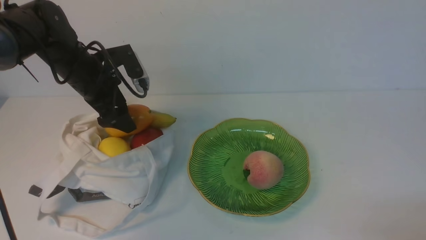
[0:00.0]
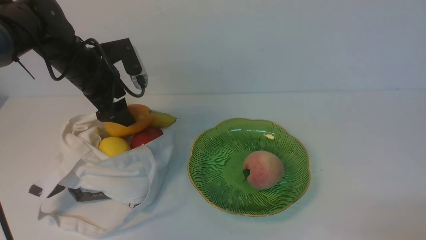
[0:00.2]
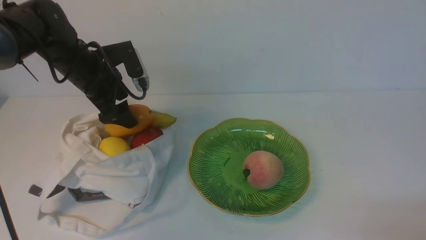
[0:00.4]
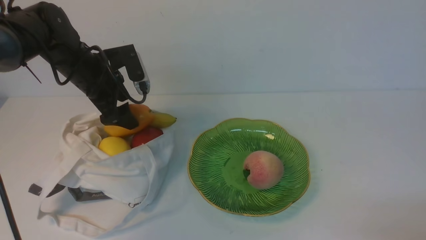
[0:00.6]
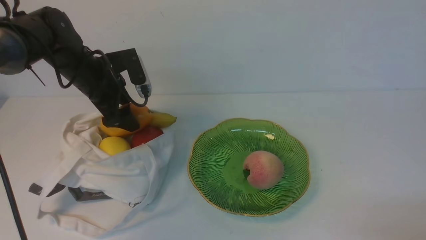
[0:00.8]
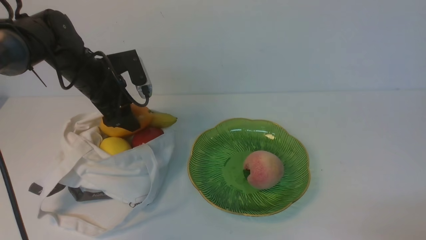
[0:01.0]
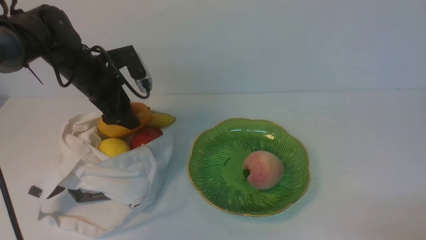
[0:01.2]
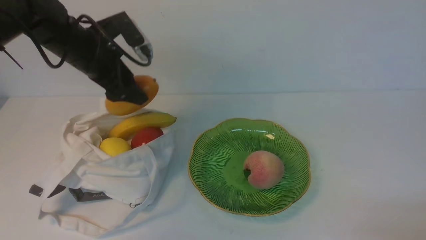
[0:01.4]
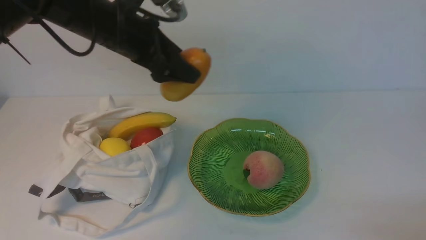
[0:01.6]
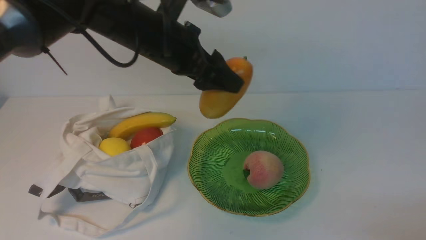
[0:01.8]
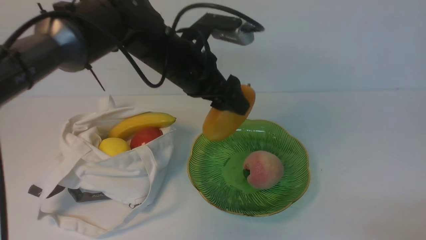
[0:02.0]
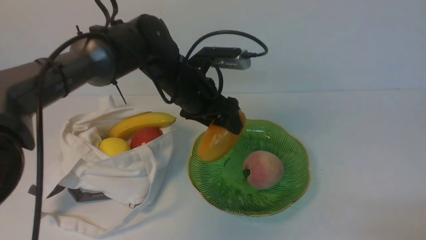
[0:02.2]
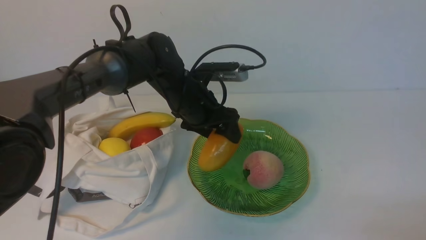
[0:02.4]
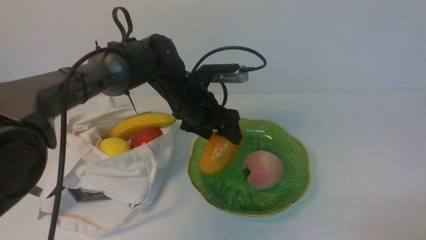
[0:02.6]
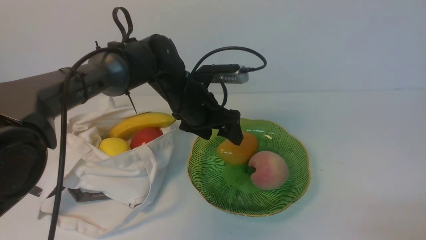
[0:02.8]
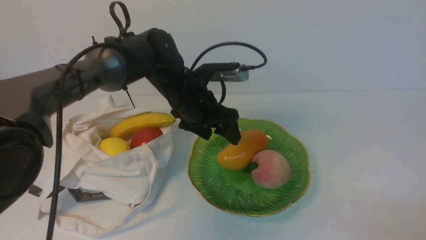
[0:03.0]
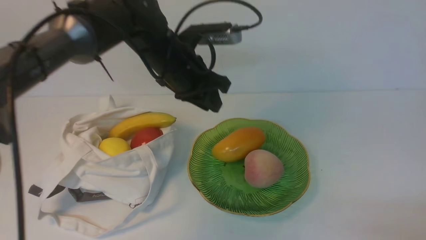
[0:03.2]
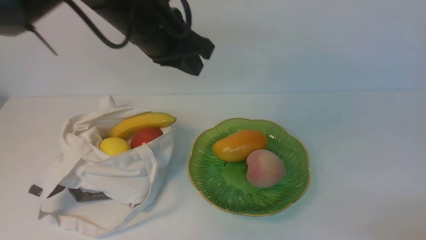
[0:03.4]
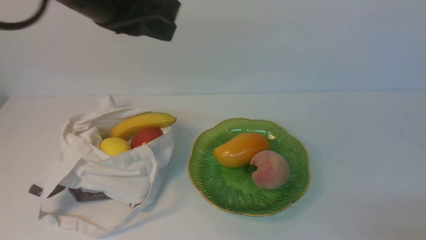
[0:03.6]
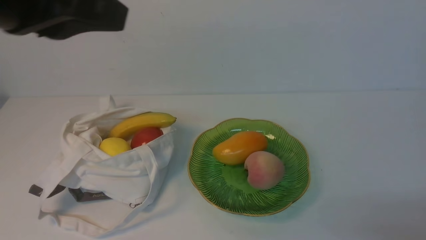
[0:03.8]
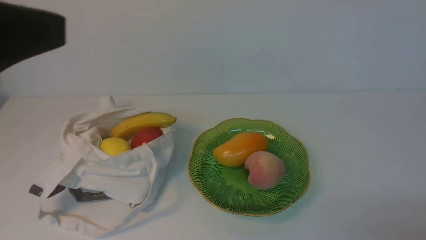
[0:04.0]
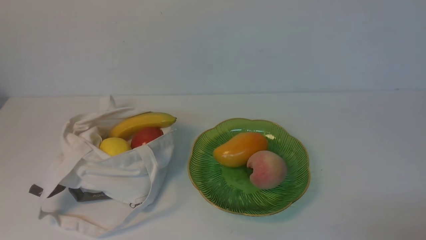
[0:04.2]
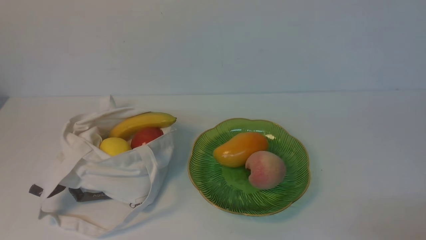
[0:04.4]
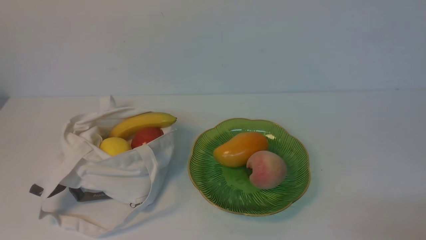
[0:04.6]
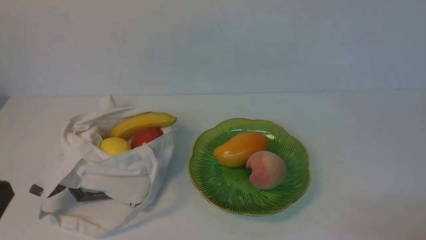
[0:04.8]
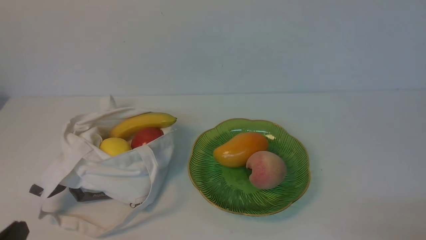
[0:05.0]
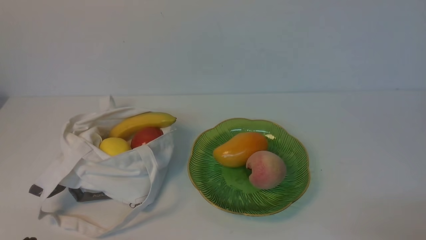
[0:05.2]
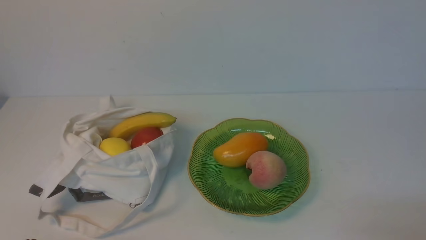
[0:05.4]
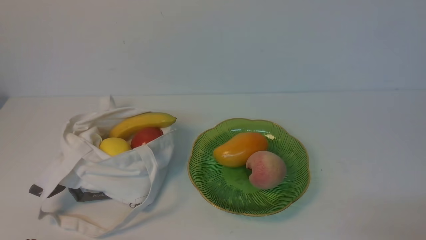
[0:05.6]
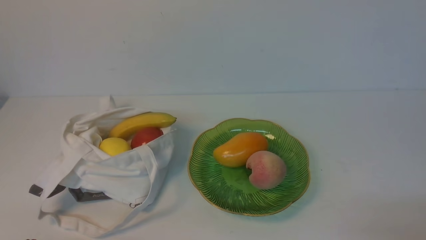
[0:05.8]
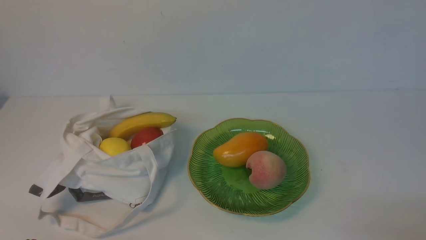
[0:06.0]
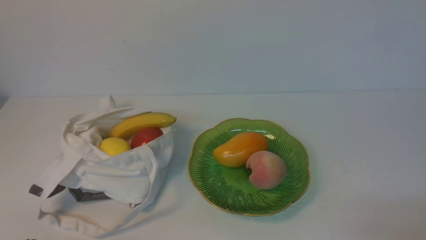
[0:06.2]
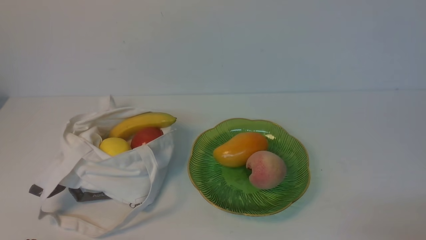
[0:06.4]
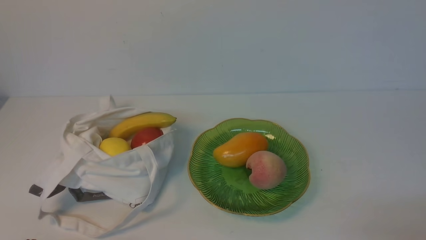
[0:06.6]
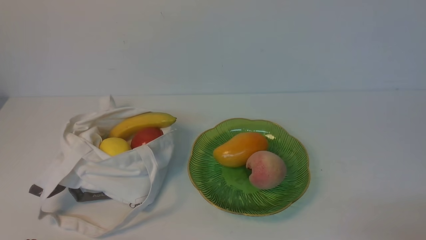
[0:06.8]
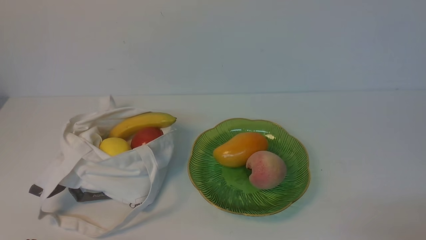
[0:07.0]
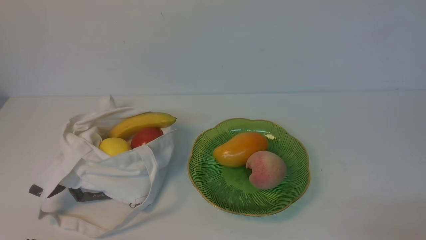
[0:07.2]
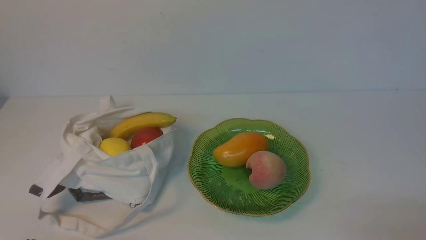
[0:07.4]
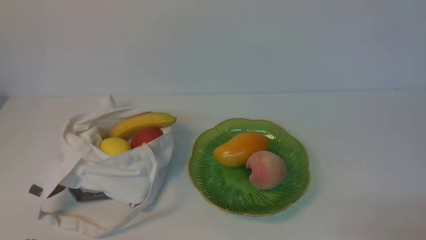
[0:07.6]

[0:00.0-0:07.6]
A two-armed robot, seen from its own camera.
Step, 0:01.4 to 0:02.8: use the left arm to put the mango into the empty plate on the right.
0:00.0 to 0:01.6: The left gripper shifts about 10 cm upward and to the right.
0:01.6 to 0:03.0: The left gripper heads to the right and downward, covering approximately 15 cm.
0:03.0 to 0:04.6: The left gripper goes about 40 cm backward, to the left and upward, and closes.
0:06.0 to 0:07.6: Both grippers stay about where they are.
